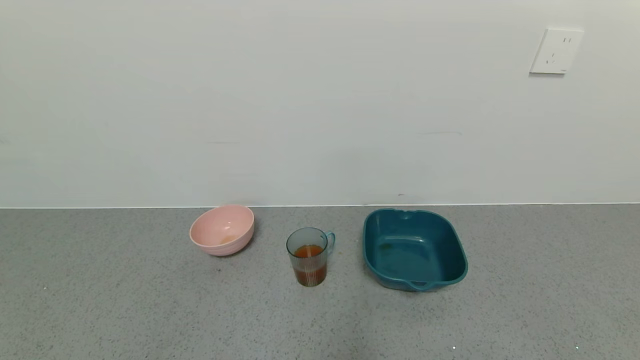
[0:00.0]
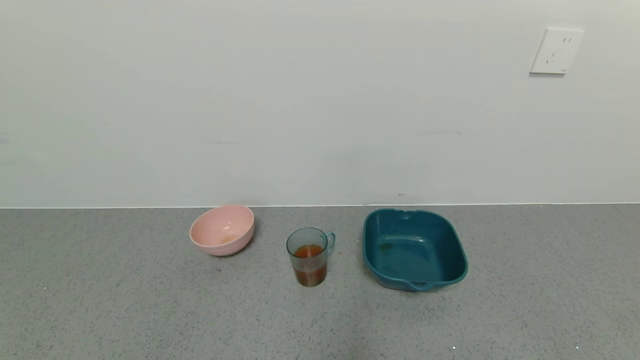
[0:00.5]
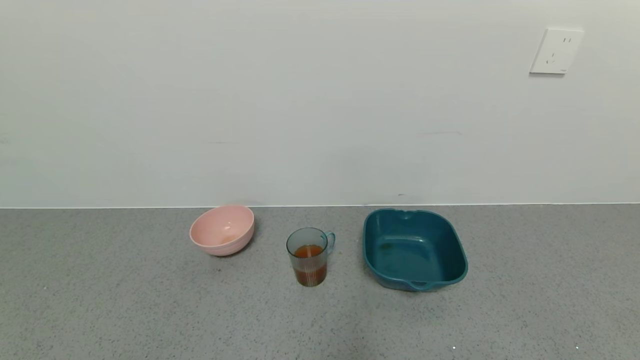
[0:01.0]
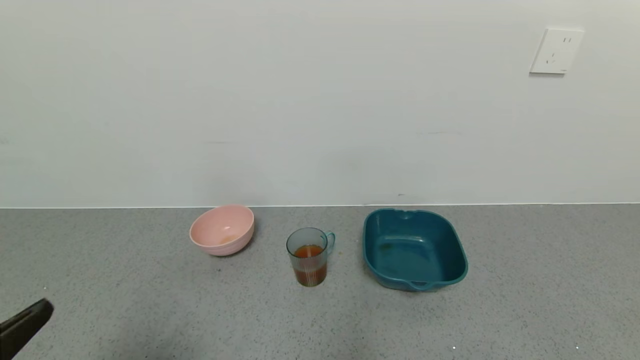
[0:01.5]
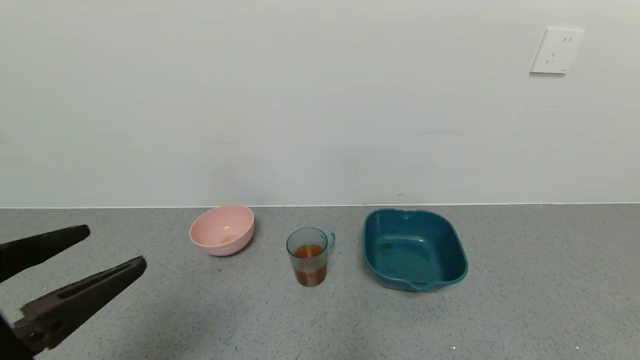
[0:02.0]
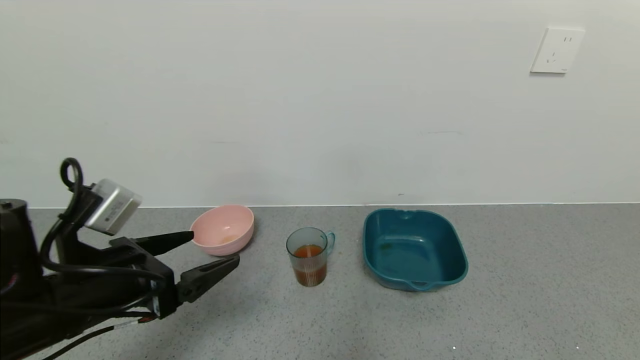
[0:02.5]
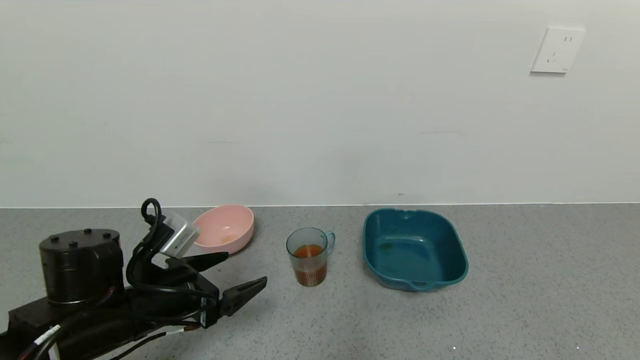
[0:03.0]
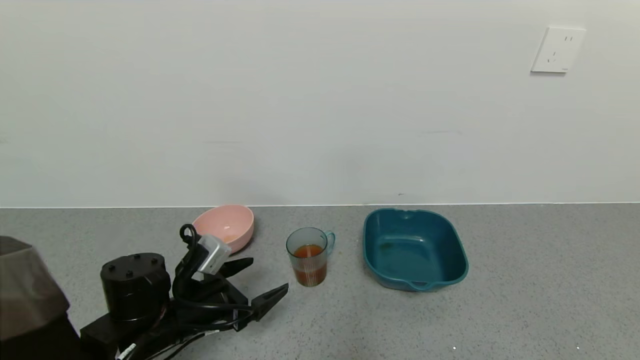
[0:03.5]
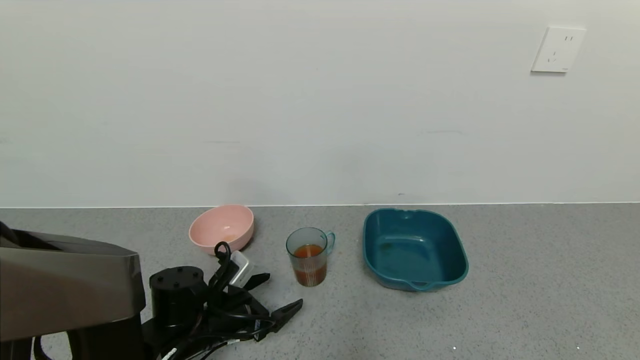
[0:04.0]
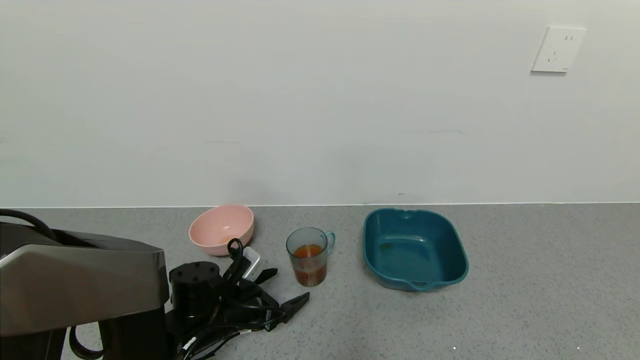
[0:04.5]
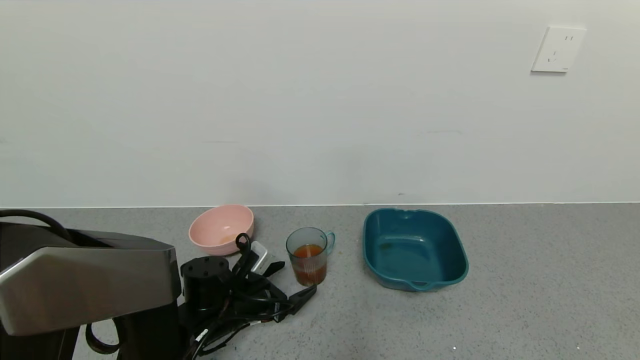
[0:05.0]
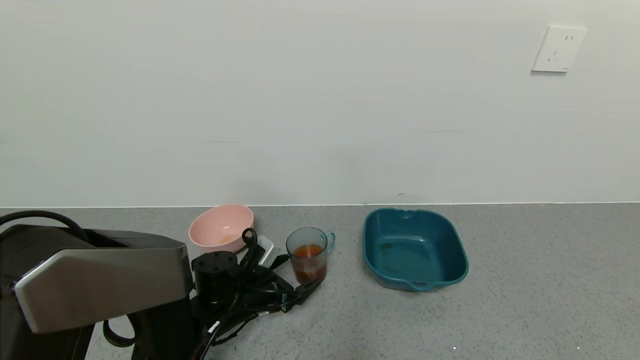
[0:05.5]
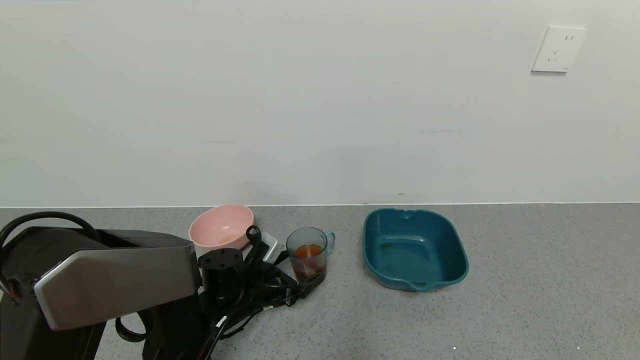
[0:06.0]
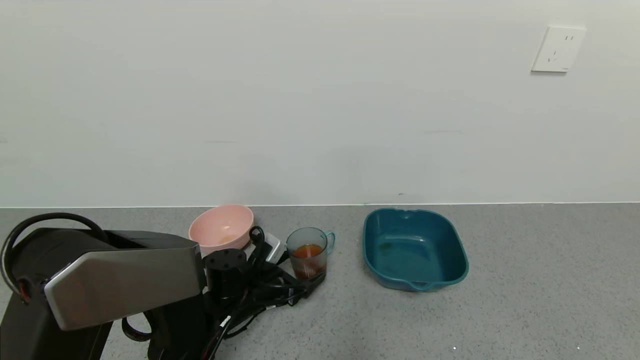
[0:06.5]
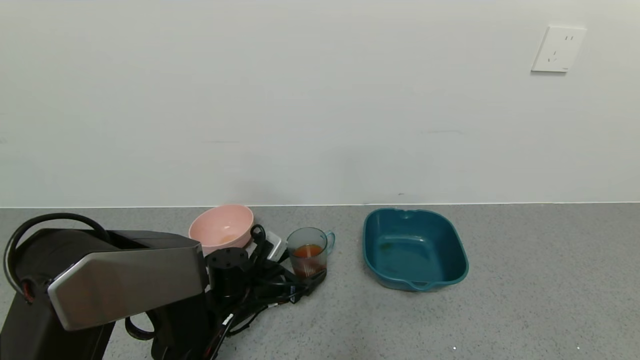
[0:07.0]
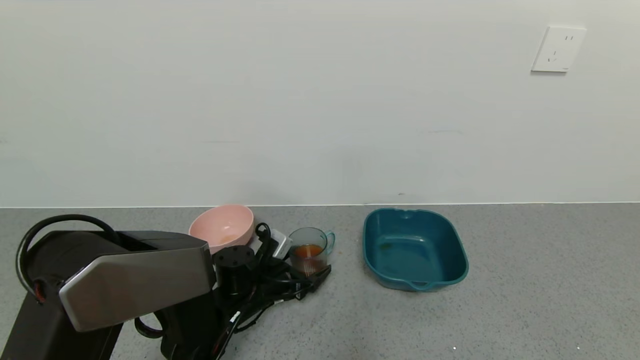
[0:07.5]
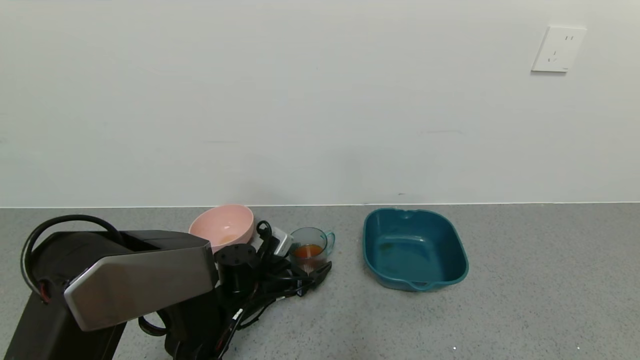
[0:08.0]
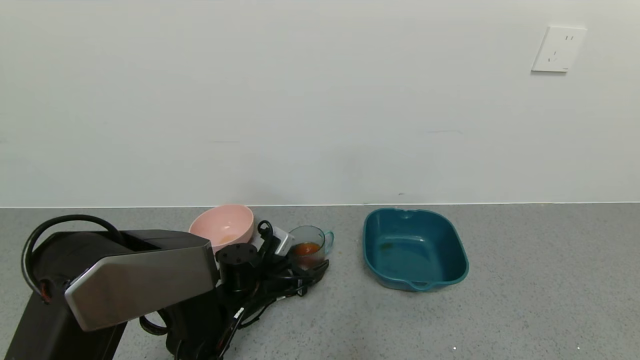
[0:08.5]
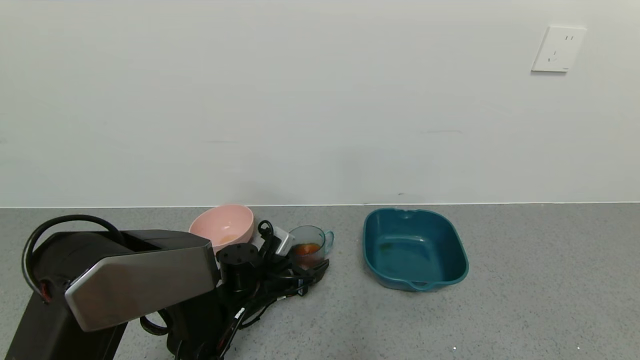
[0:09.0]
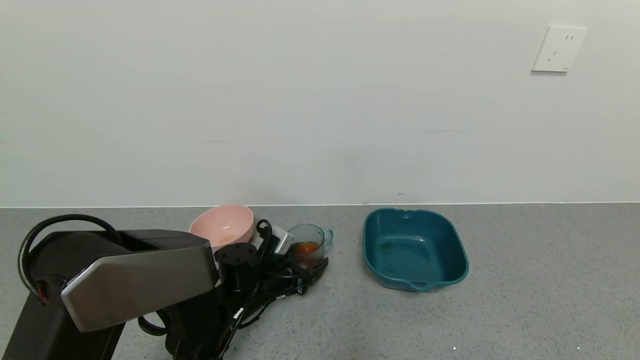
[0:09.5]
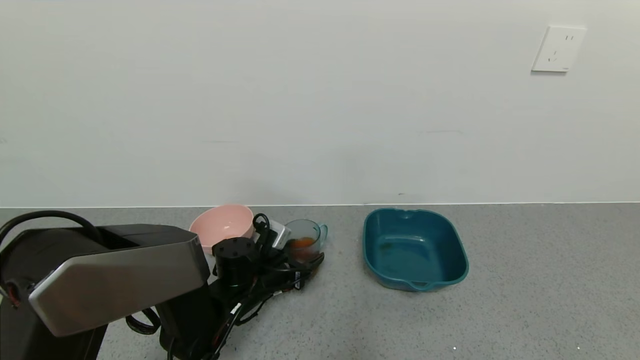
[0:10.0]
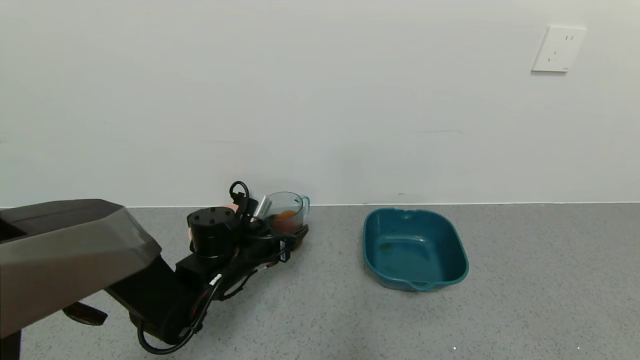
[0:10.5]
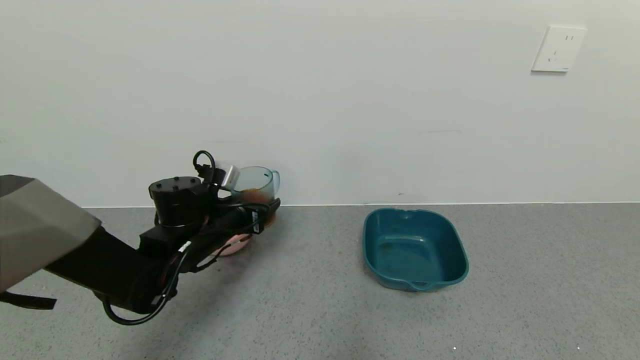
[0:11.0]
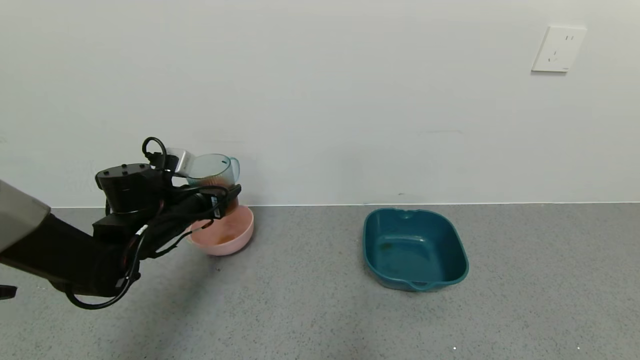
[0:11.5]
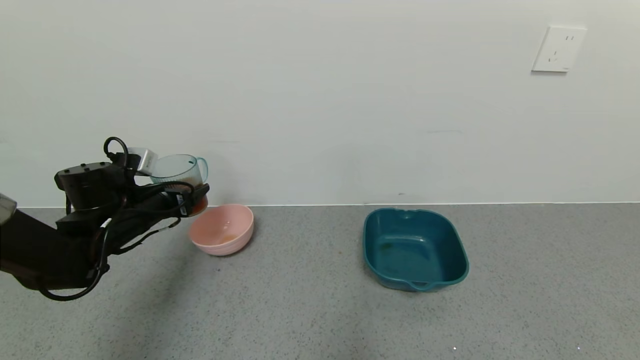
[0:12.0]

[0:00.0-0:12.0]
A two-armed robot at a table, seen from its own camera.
Task of the whole recording: use a gripper to pick up the cup and pour the liquid into a bowl or tray.
Step, 0:00.0 to 0:08.5: Pick up blue cup filled with tea with left gripper.
0:00.0 to 0:02.0: The left gripper travels upward and forward by roughly 20 cm.
0:02.0 to 0:04.0: The left gripper is displaced downward and forward by about 25 cm.
0:04.0 to 0:06.0: The left gripper moves forward, roughly 5 cm.
0:06.0 to 0:08.0: The grippers stay close to where they were, moving slightly.
0:08.0 to 0:10.0: The left gripper closes its fingers.
0:10.0 to 0:12.0: The left gripper goes some 20 cm to the left and upward.

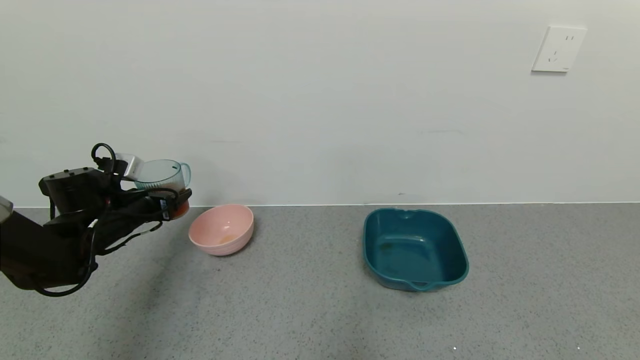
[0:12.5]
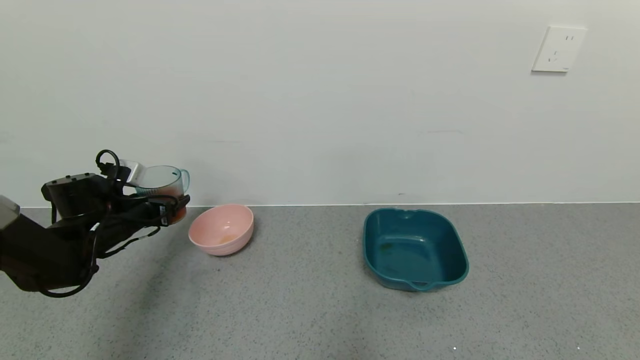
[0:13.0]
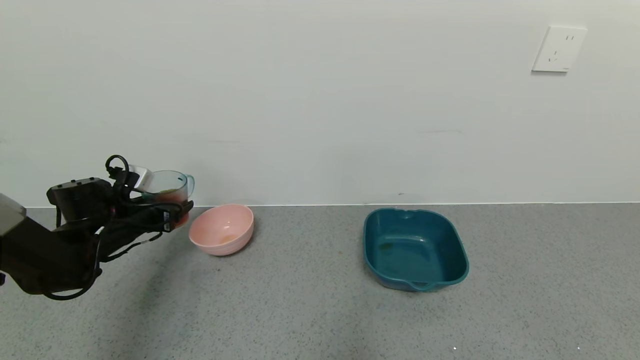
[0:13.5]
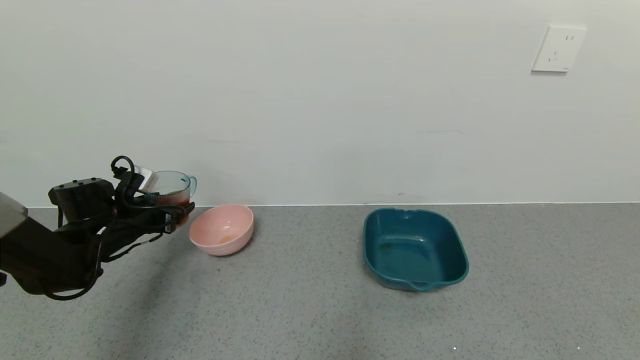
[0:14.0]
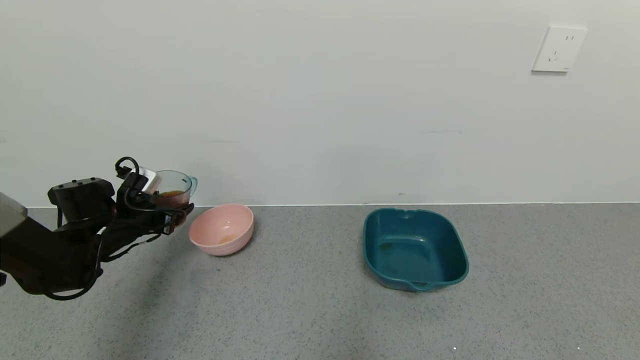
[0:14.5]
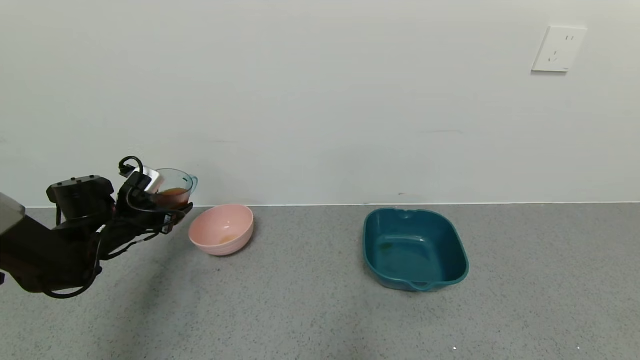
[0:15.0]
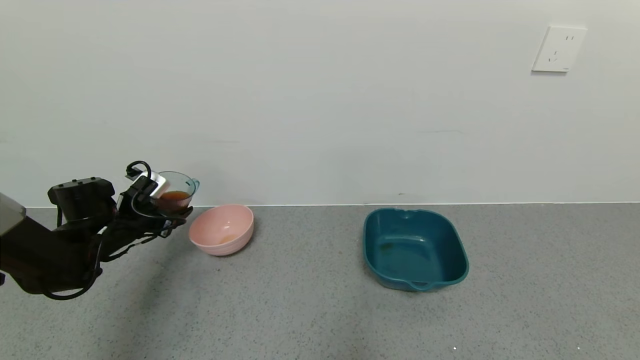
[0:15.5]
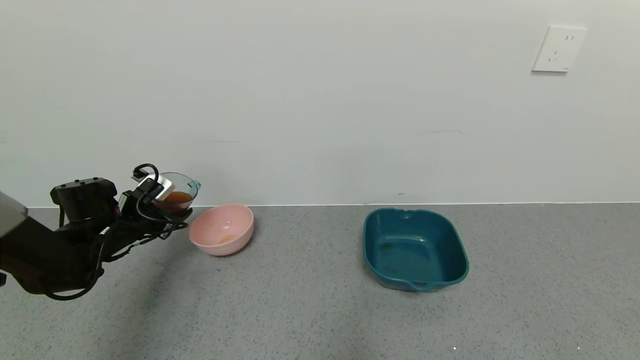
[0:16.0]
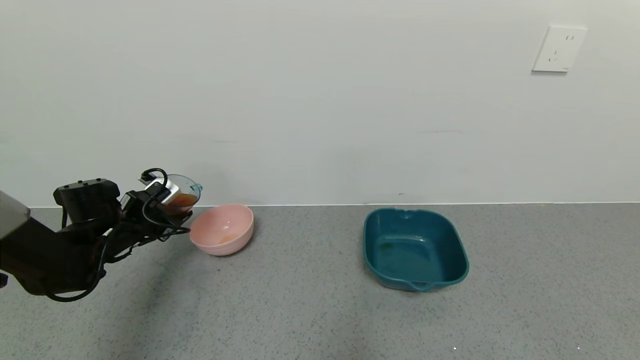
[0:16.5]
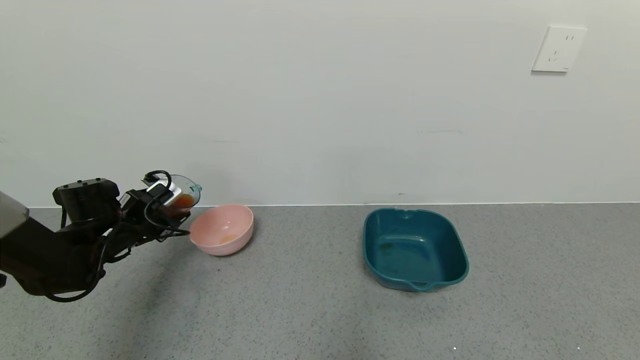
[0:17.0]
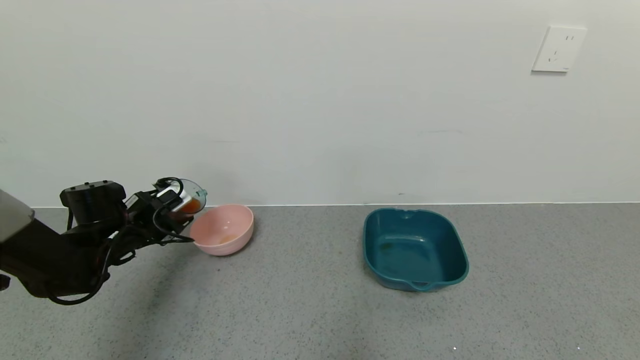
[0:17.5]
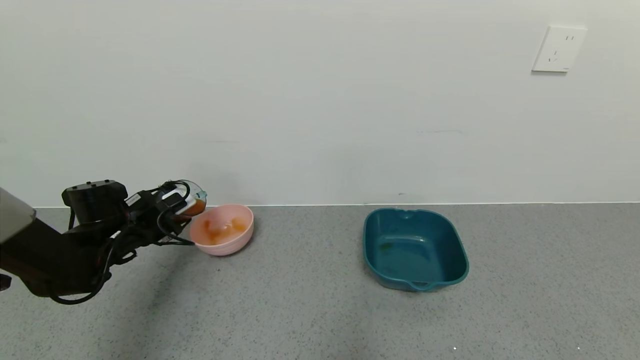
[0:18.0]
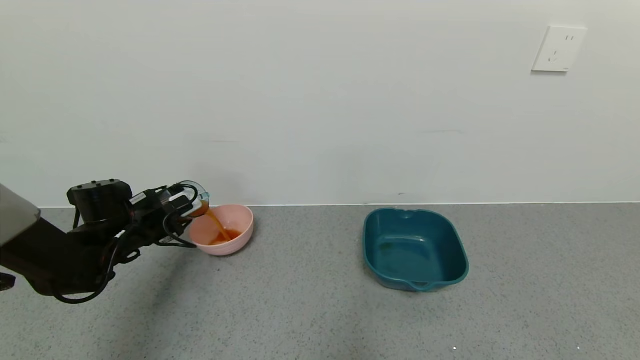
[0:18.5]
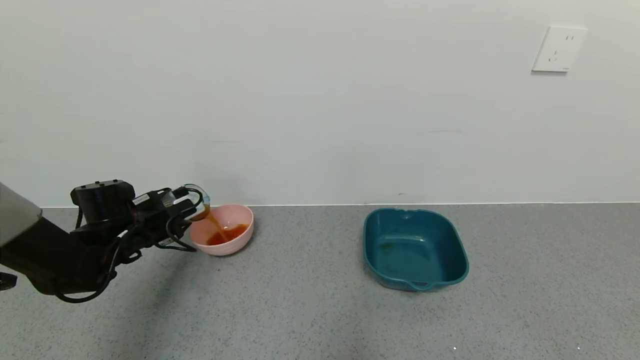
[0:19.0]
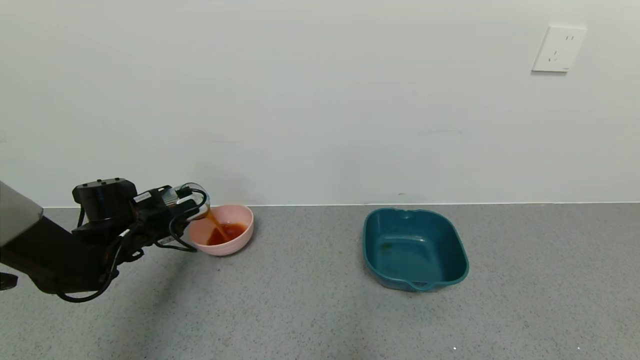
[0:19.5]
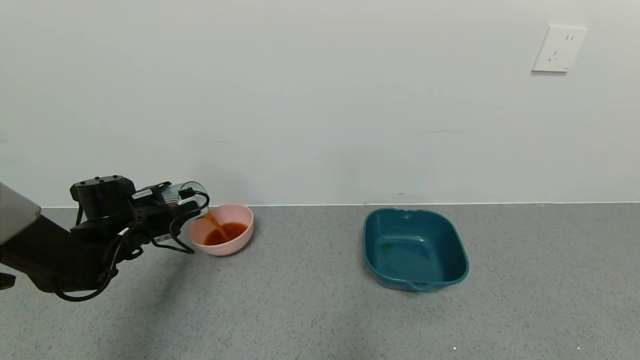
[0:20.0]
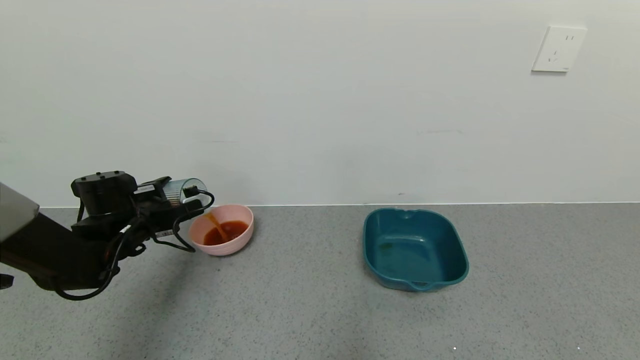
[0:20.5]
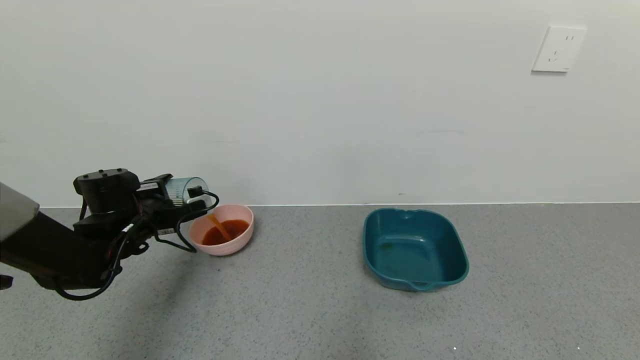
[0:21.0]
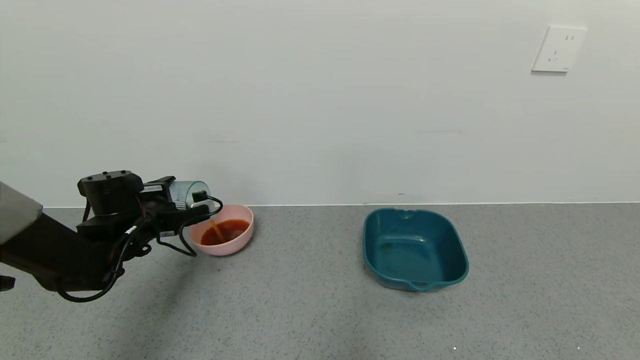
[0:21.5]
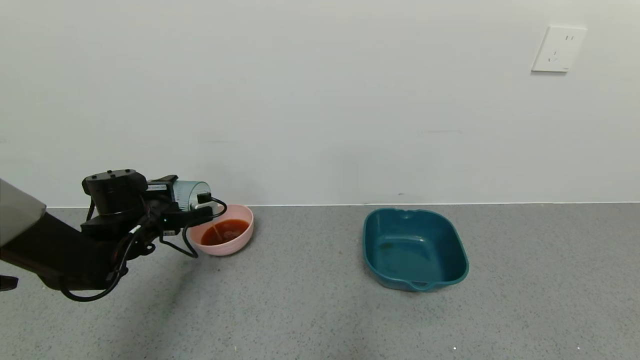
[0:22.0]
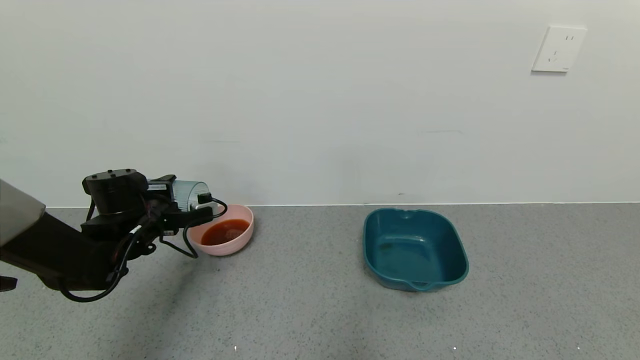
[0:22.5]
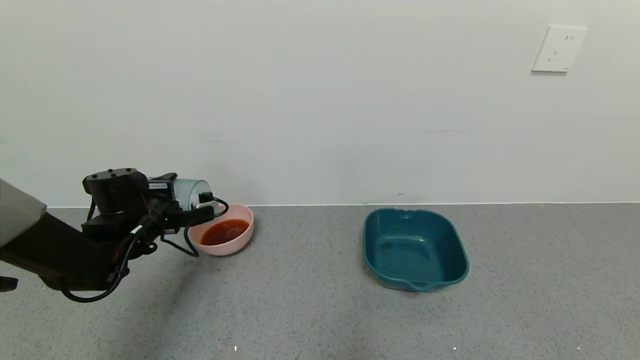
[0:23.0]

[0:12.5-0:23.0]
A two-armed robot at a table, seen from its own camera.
Task of the whole recording: use a gripper to pick up the cup and pour the liquid into a bowl or tray.
Step, 0:12.5 to 0:22.5: Pour the tea into the pink bowl with left gripper.
0:12.5 to 0:14.5: The grippers make only small movements.
0:19.0 to 0:21.0: The grippers stay close to where they were, moving slightly.
0:21.0 to 0:23.0: There are only small adjustments of the grippers.
